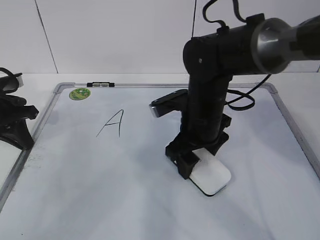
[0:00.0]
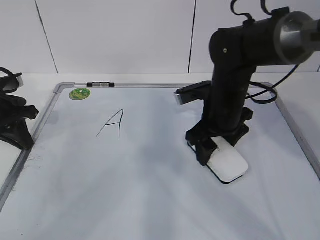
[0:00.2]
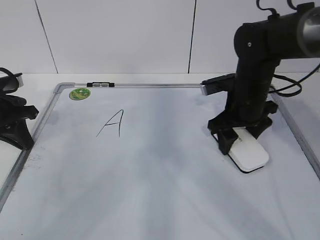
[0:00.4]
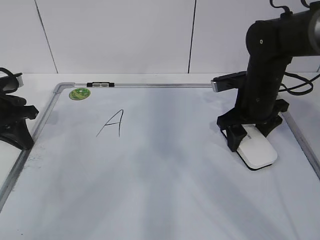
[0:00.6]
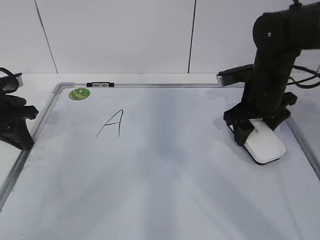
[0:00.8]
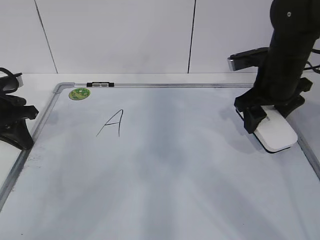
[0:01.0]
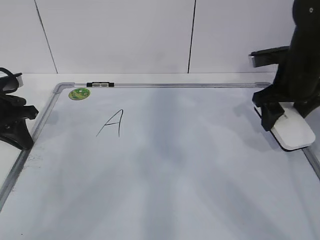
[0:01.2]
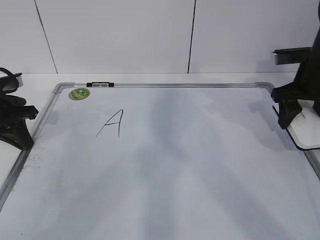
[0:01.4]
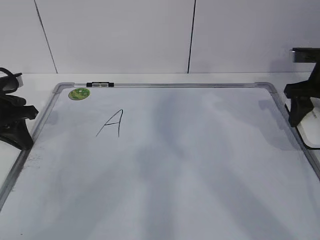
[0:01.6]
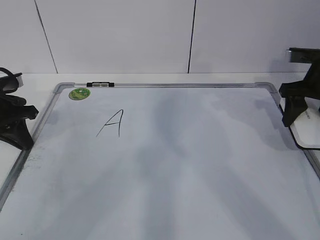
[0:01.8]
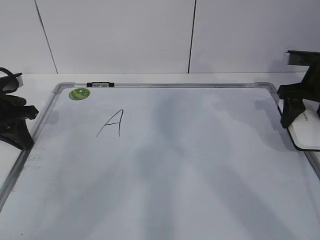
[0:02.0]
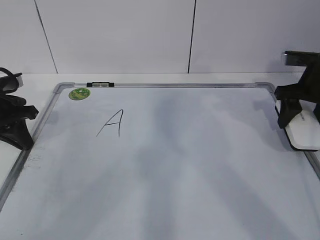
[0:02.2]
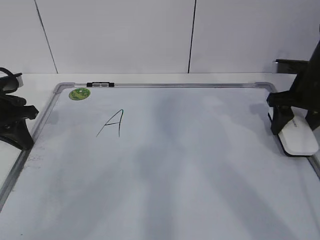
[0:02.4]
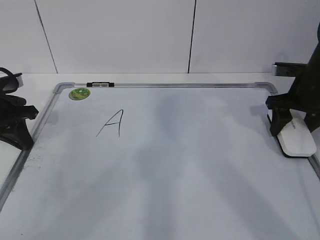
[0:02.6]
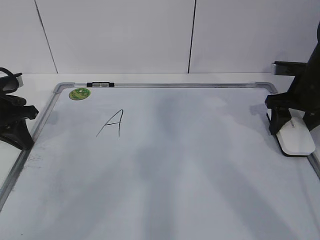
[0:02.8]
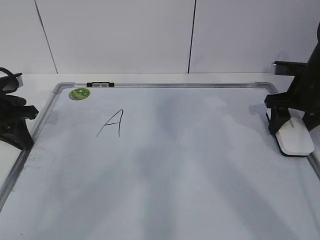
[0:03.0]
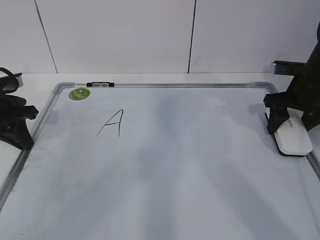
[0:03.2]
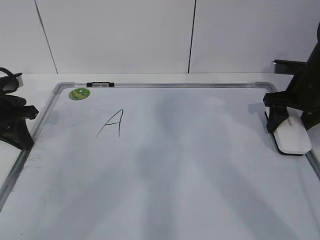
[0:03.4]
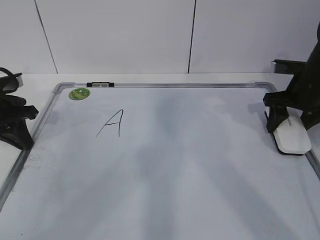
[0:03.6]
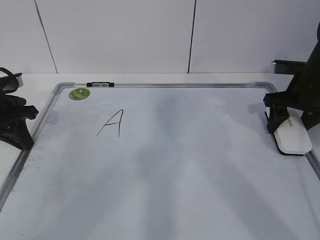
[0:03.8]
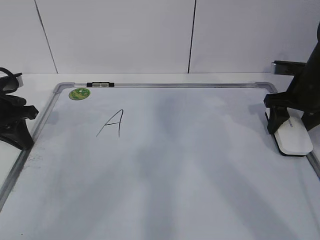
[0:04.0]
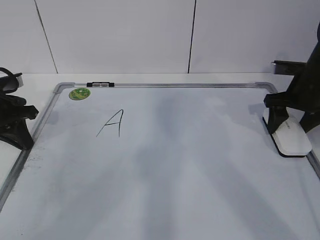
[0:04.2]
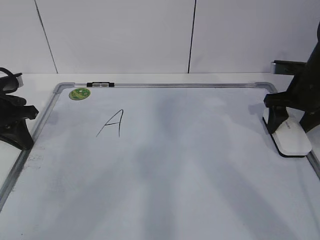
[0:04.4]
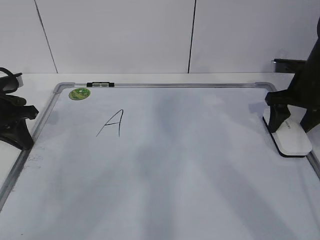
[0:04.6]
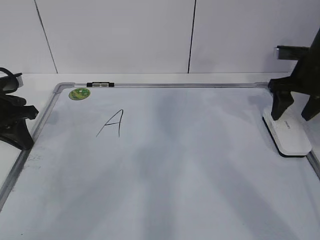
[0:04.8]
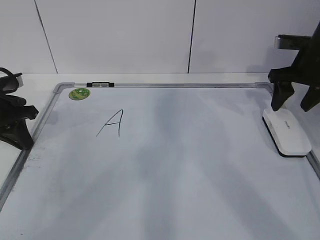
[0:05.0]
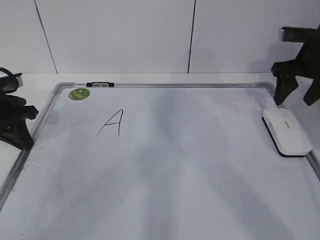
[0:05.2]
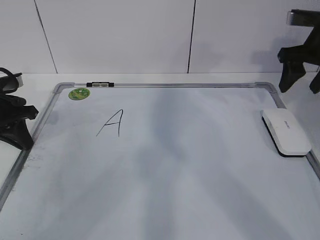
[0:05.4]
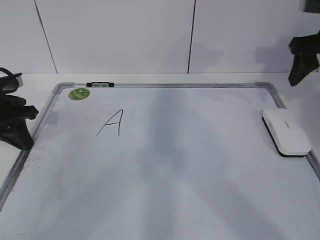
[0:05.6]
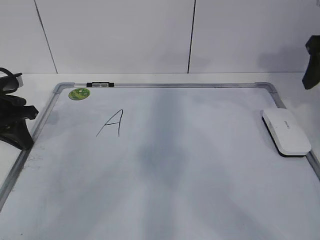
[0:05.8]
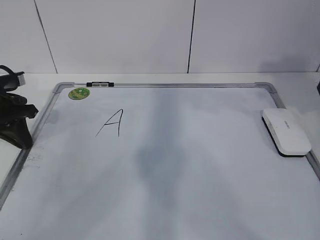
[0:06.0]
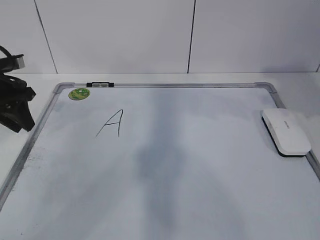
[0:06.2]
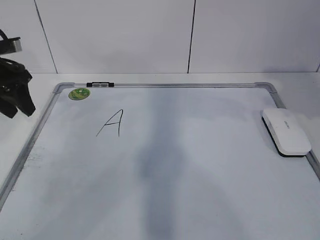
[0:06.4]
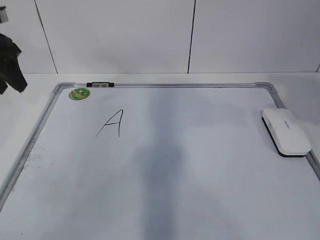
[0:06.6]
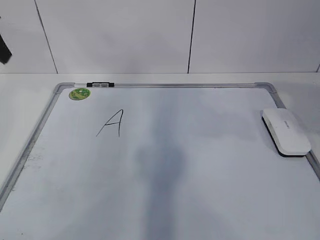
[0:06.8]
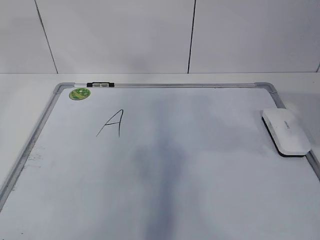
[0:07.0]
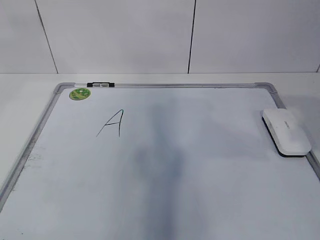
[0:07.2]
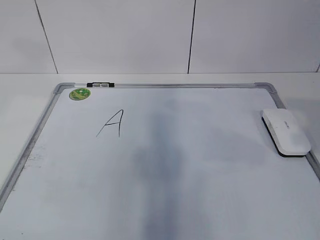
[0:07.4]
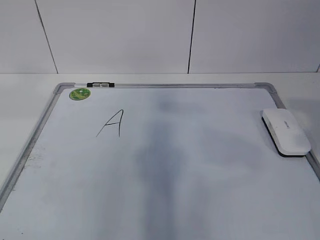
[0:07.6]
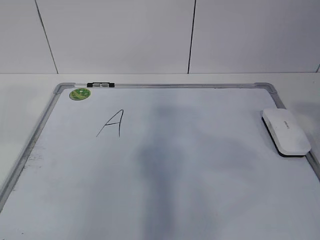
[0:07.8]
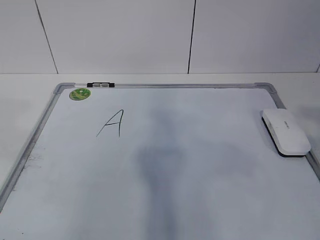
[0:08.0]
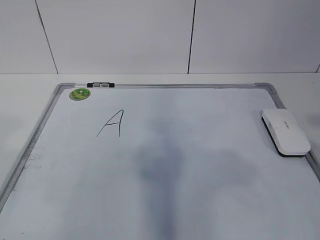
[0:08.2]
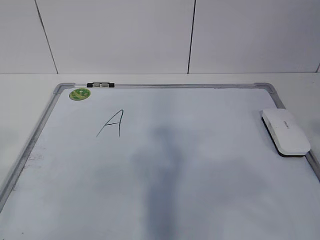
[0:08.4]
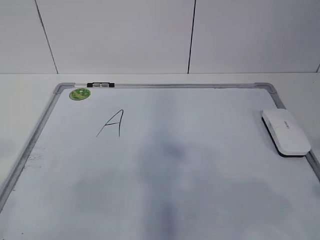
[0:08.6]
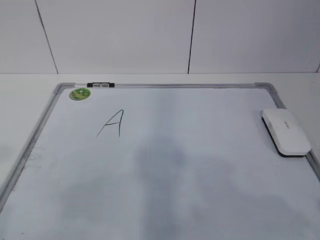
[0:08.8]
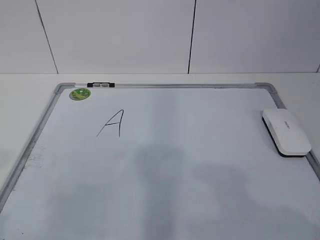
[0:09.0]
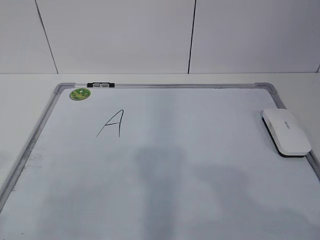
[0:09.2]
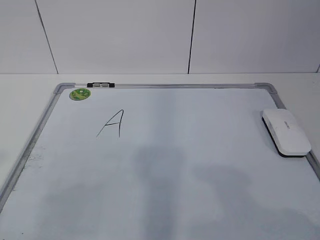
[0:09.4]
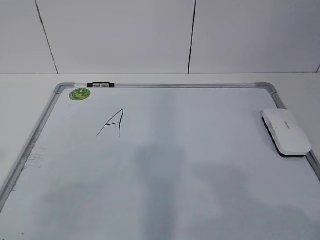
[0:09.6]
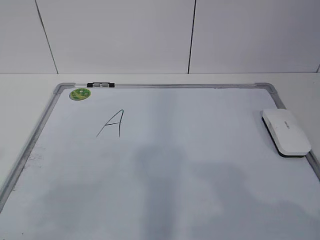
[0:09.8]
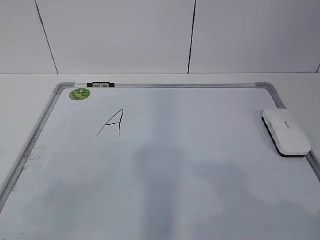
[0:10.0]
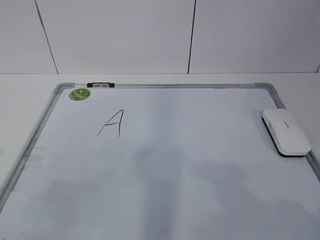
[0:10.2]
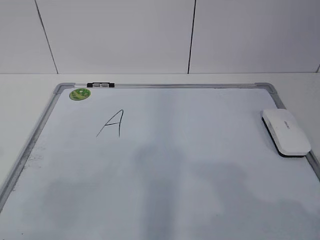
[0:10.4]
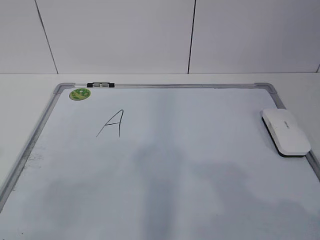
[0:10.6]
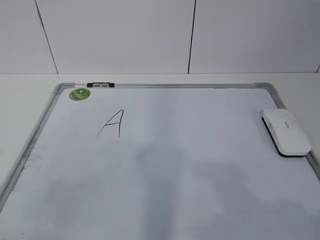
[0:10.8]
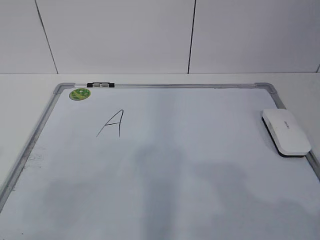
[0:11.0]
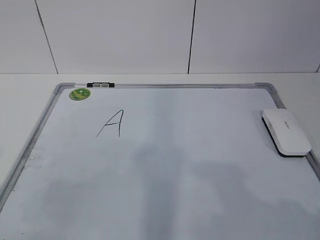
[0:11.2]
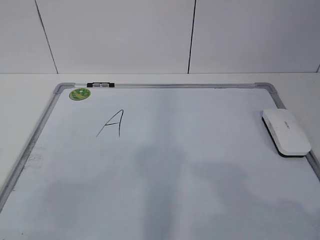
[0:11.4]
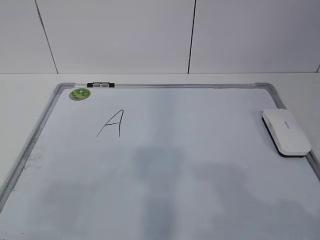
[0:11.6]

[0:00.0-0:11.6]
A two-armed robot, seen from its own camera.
Task of the whole recording: pick up the eraser on the blackboard and erase the letter "a".
0:00.0 to 0:01.4: The right gripper shifts some 20 cm to the right.
0:01.4 to 0:02.8: There are only small adjustments of the grippers.
0:02.8 to 0:04.4: The right gripper opens up.
0:04.4 to 0:05.8: The right gripper shifts roughly 15 cm upward and backward, and closes its fingers.
0:05.8 to 0:07.2: The left gripper heads upward and backward, covering about 30 cm, and opens its fingers, while the right gripper travels backward by roughly 20 cm.
0:07.2 to 0:08.8: The right gripper is displaced backward by some 15 cm.

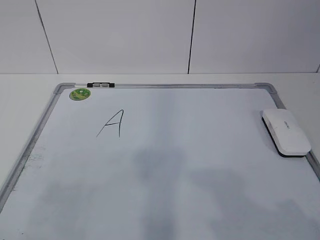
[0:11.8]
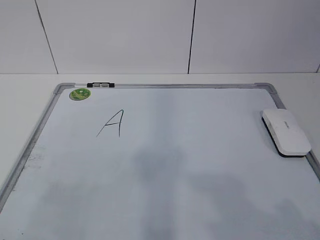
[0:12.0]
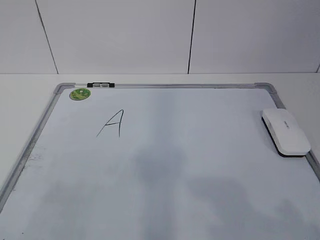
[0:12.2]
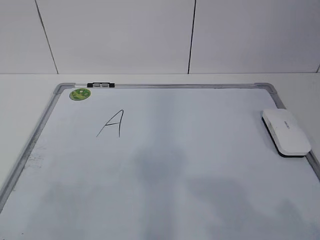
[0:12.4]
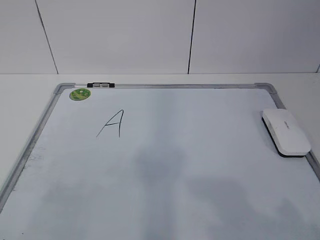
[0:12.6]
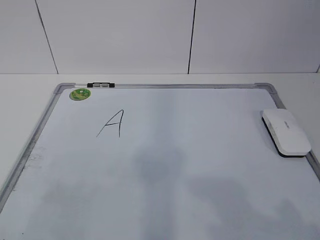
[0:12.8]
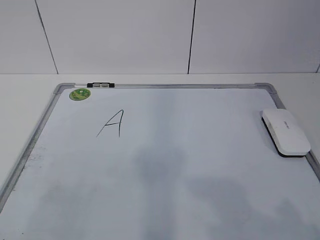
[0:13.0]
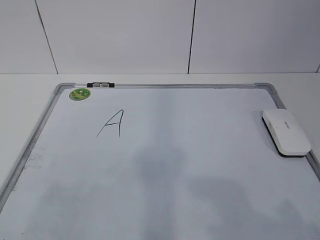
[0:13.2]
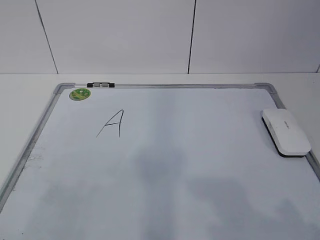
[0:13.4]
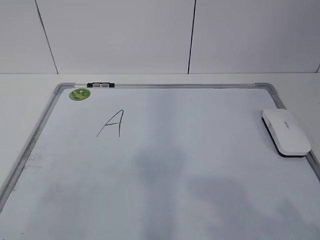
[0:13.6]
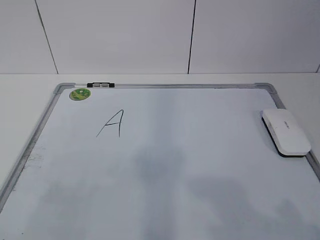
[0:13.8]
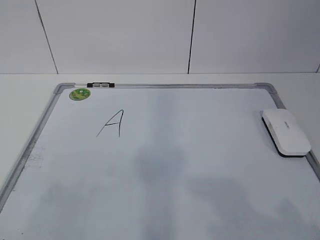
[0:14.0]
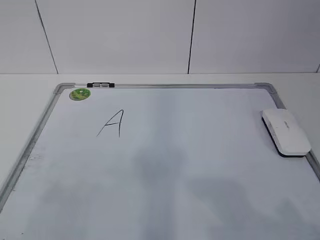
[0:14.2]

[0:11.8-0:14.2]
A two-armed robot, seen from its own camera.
Task of the whole recording: pick up the eraser on the blackboard and erase the letter "a".
0:13.0 to 0:14.2: Both grippers stay put.

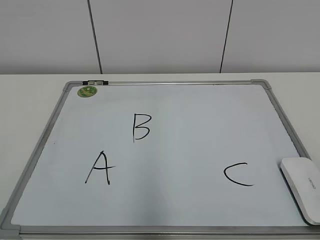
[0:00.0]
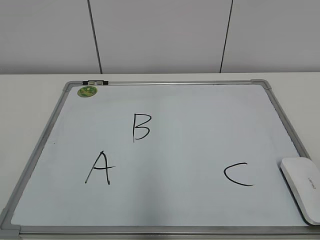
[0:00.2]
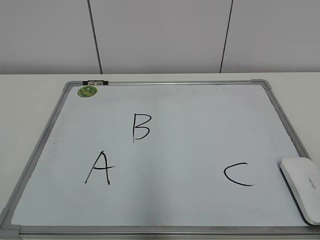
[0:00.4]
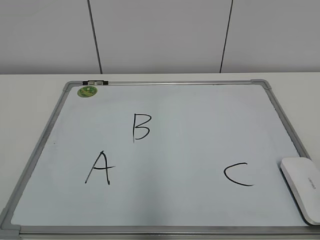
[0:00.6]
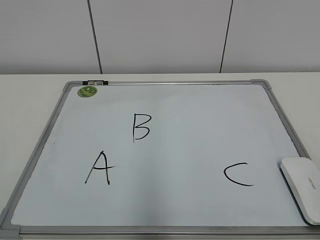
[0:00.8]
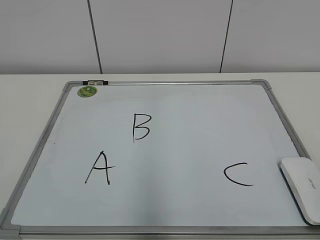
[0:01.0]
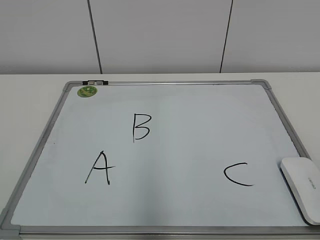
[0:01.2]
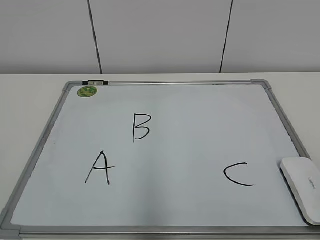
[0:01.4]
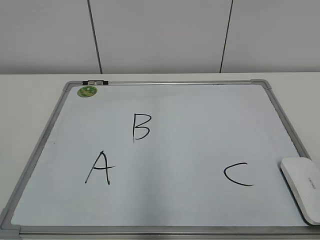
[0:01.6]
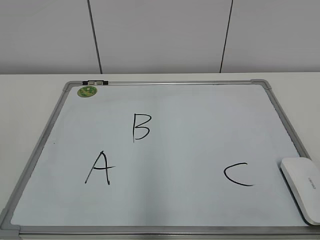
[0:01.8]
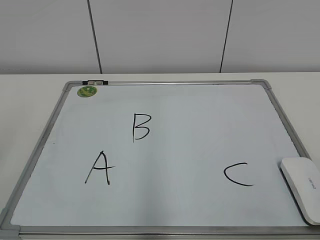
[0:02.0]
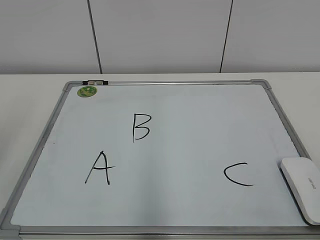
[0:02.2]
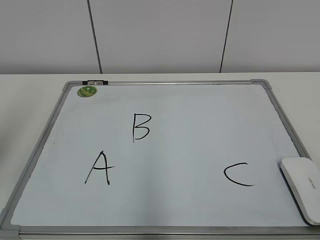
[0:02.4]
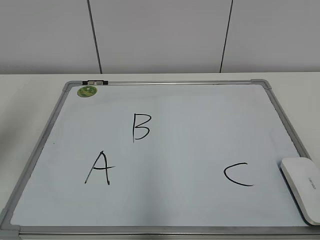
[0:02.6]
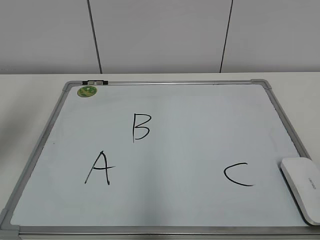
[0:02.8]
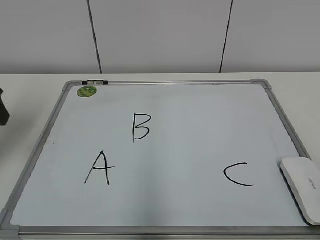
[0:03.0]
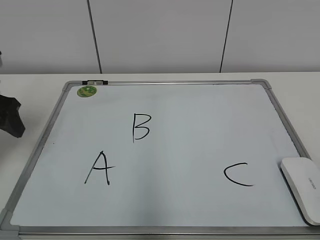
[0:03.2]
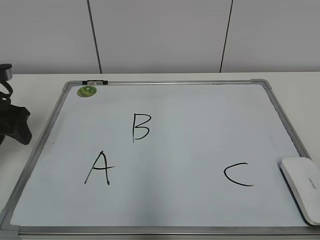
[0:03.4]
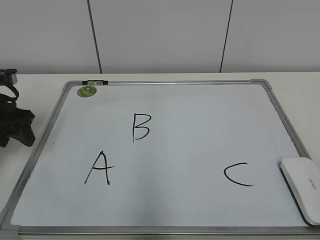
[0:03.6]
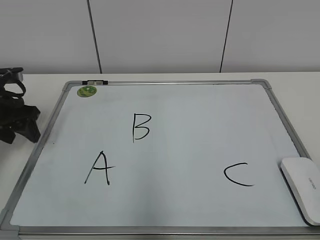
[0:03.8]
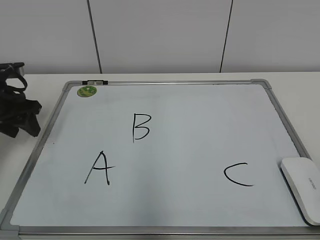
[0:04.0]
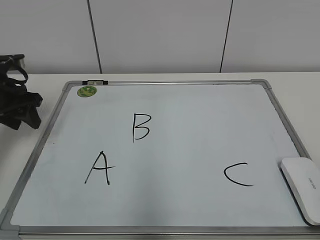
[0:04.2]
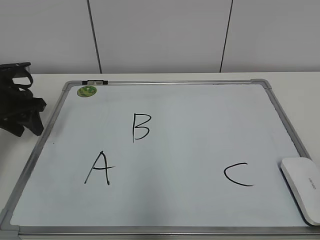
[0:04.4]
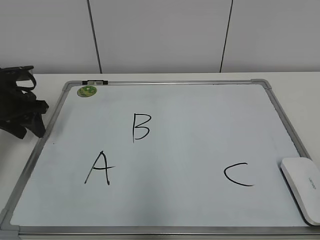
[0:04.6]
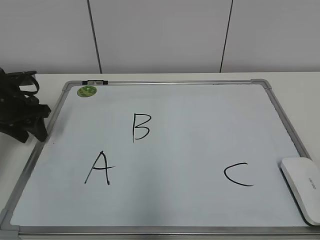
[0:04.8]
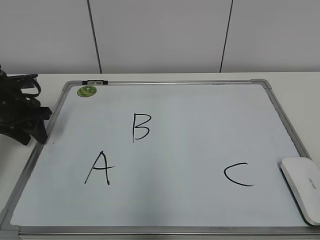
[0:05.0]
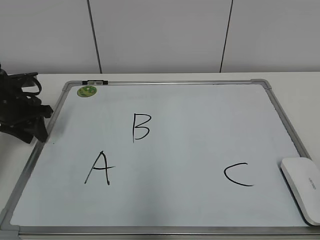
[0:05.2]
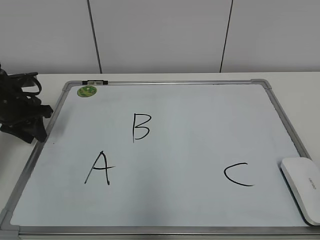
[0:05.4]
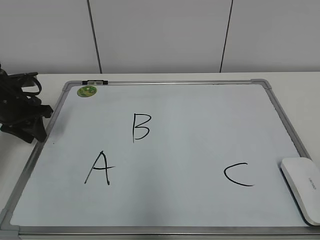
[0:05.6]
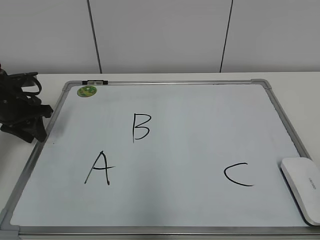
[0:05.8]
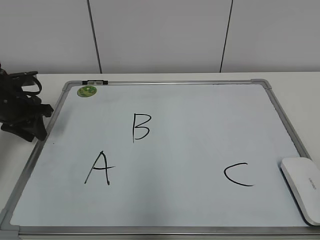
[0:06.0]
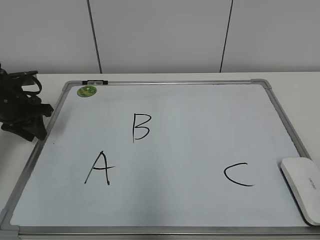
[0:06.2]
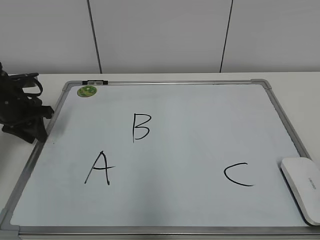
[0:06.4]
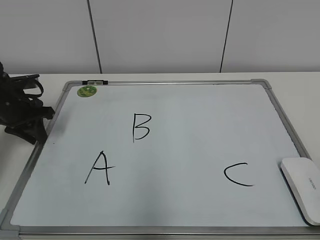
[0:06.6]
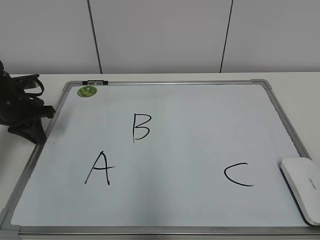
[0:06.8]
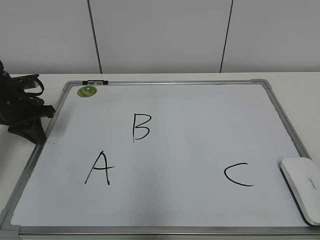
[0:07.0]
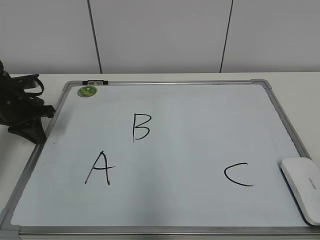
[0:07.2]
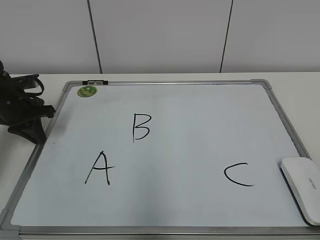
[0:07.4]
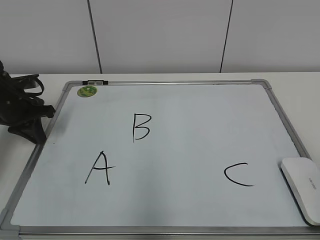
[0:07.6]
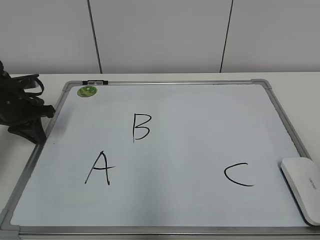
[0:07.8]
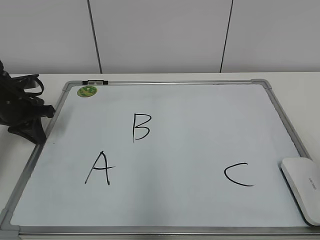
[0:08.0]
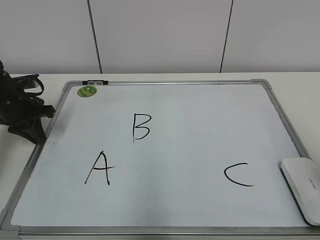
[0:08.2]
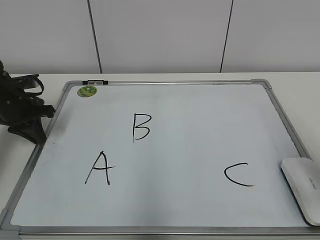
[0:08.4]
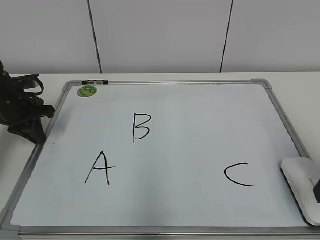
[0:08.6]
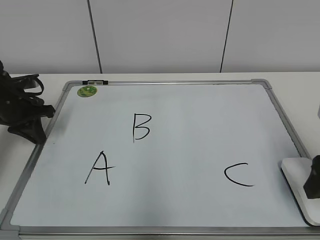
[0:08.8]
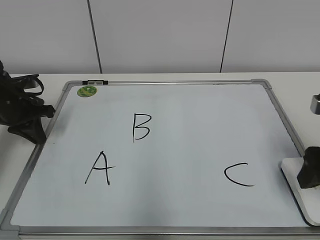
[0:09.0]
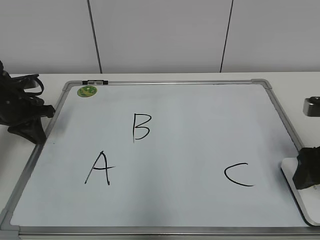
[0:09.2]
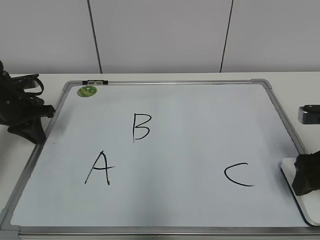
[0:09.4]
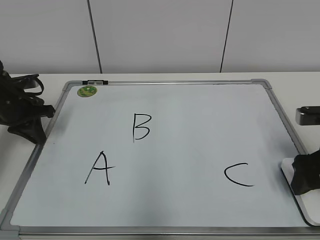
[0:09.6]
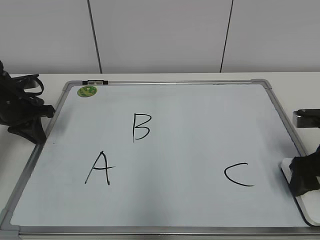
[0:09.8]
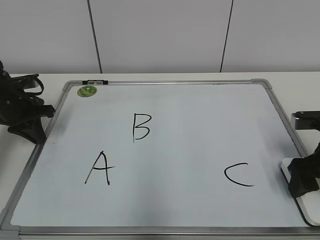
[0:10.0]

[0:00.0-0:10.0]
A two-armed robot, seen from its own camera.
Task of the whole recording: pick up the eraser on the blackboard and erase the letter "B".
Step, 0:00.0 to 0:06.6: Hold the drawing board steady with your left hand.
0:01.4 to 0:02.8: The left gripper goes approximately 30 cm forward.
0:02.8 to 0:04.2: The left gripper is displaced downward and forward by roughly 15 cm.
0:04.2 to 0:05.8: The grippers stay close to where they were, moving slightly.
0:05.8 to 0:07.2: The two grippers keep their place.
0:07.2 to 0:08.6: The right gripper goes about 20 cm forward.
0:08.6 to 0:10.0: The right gripper goes approximately 10 cm forward and downward, and opens.
